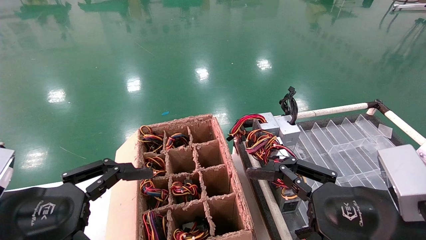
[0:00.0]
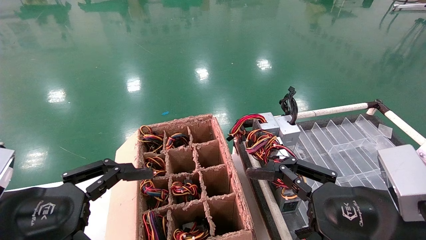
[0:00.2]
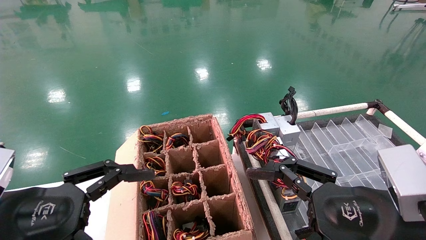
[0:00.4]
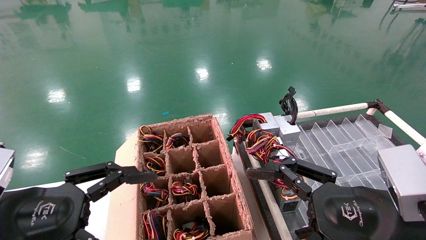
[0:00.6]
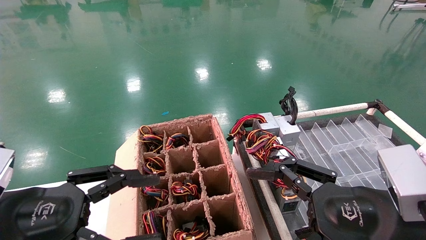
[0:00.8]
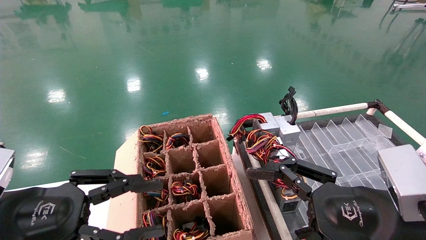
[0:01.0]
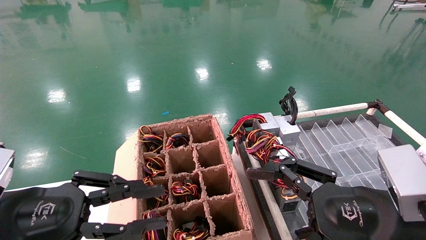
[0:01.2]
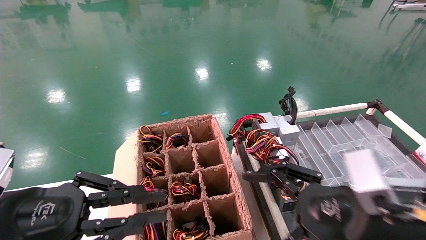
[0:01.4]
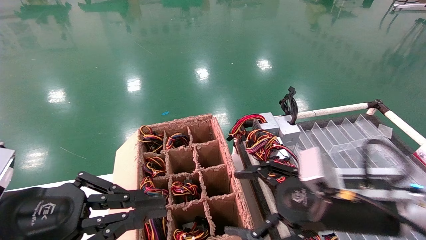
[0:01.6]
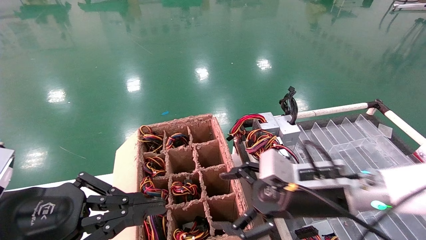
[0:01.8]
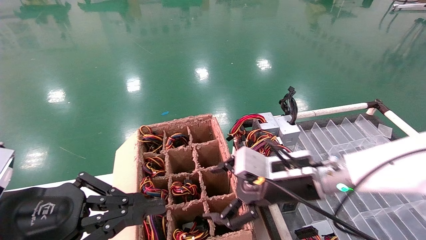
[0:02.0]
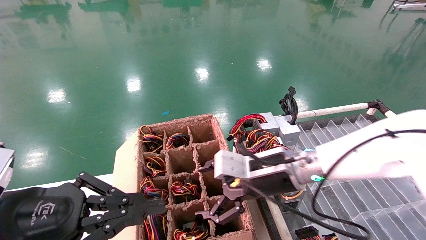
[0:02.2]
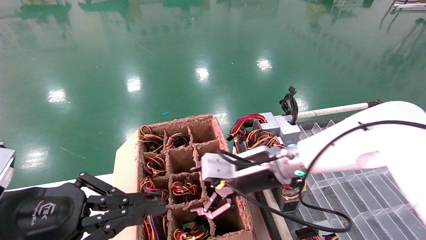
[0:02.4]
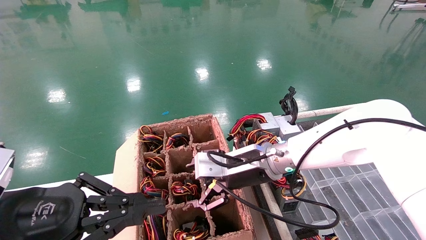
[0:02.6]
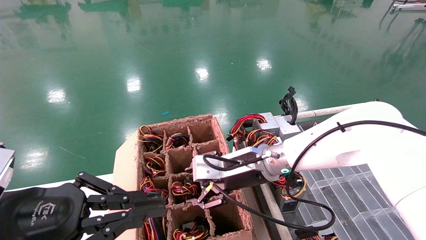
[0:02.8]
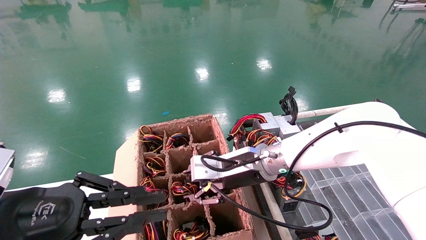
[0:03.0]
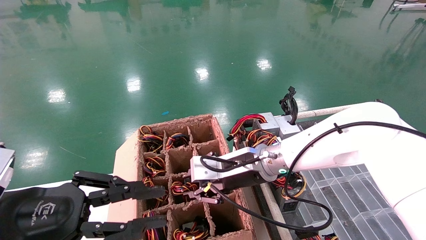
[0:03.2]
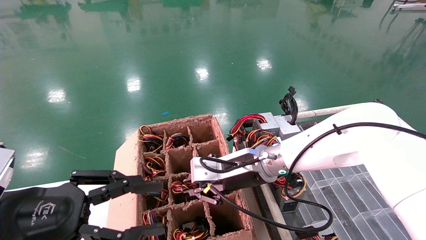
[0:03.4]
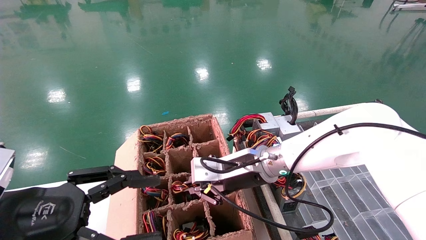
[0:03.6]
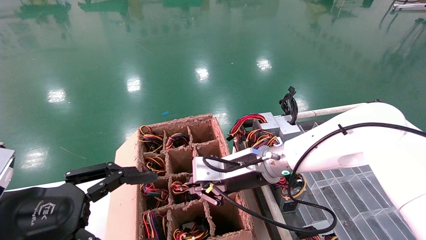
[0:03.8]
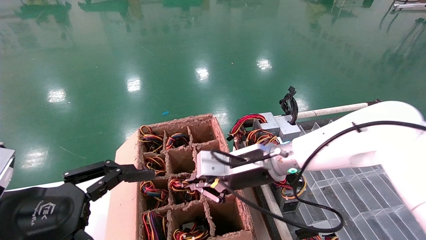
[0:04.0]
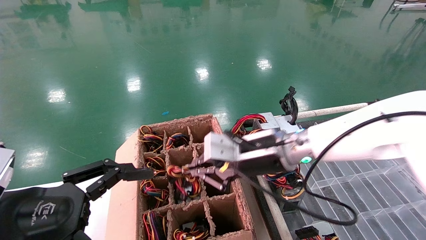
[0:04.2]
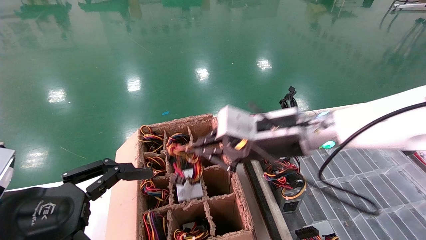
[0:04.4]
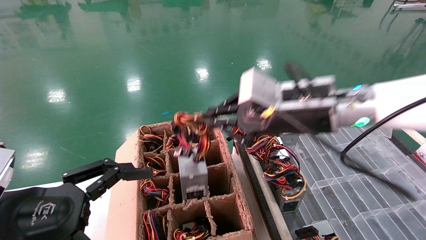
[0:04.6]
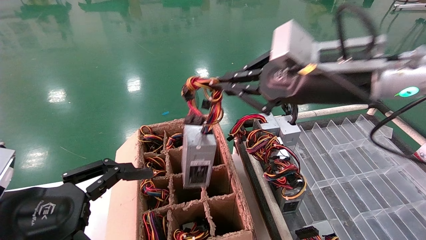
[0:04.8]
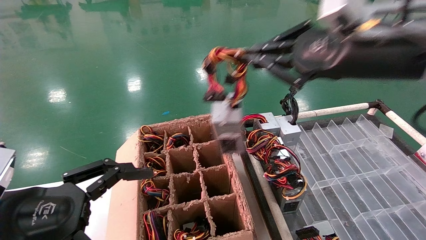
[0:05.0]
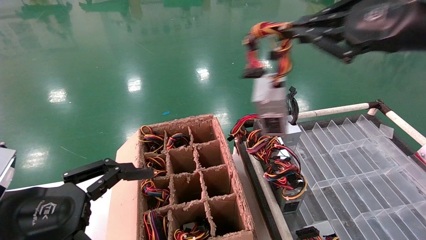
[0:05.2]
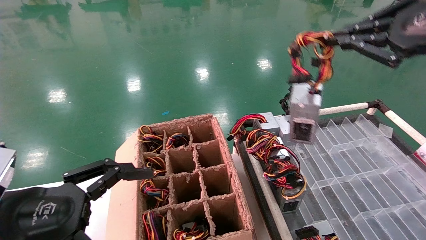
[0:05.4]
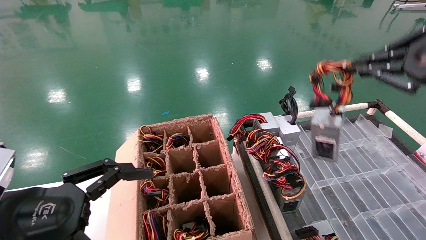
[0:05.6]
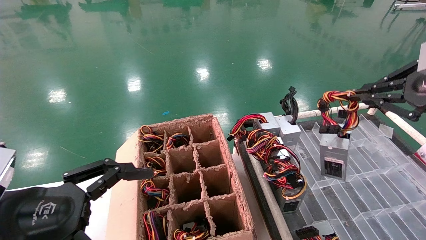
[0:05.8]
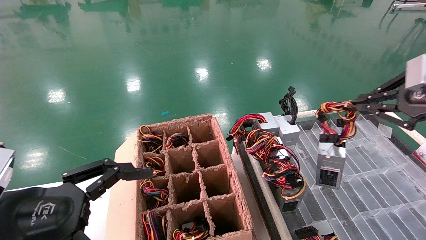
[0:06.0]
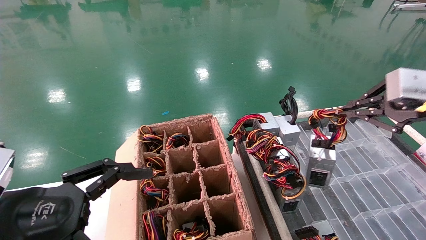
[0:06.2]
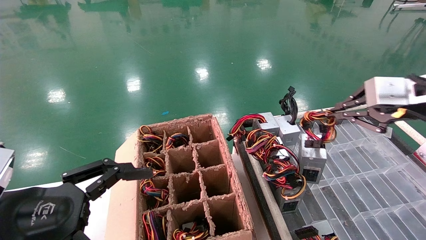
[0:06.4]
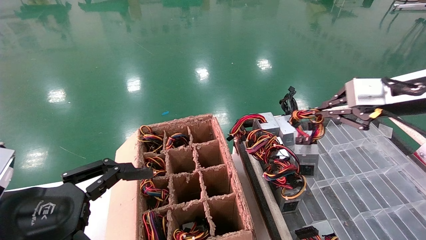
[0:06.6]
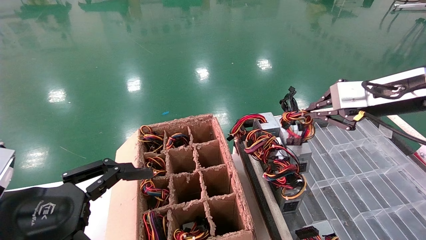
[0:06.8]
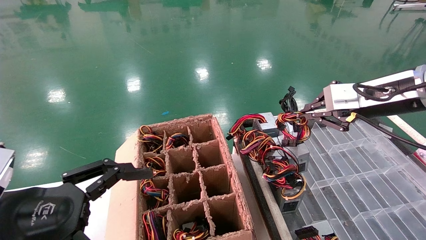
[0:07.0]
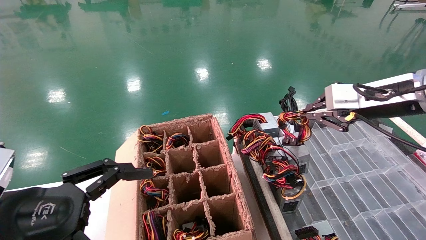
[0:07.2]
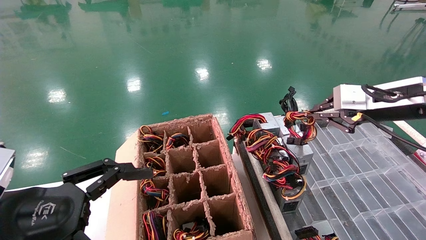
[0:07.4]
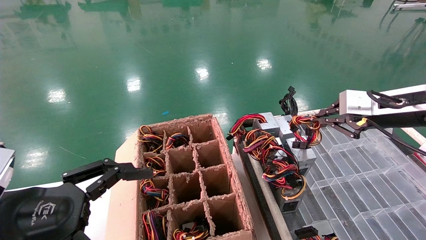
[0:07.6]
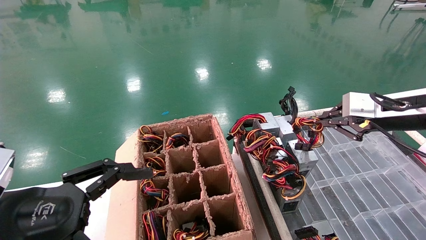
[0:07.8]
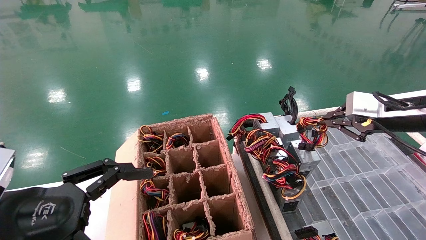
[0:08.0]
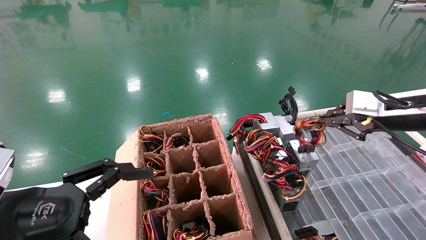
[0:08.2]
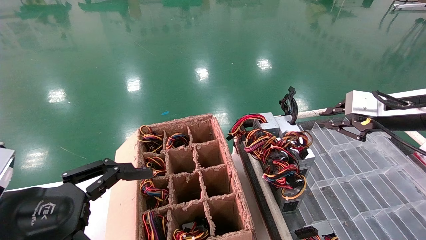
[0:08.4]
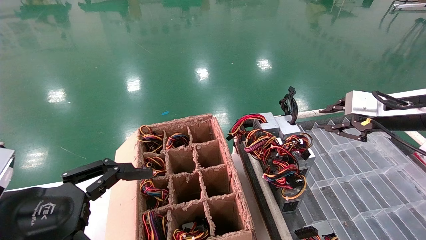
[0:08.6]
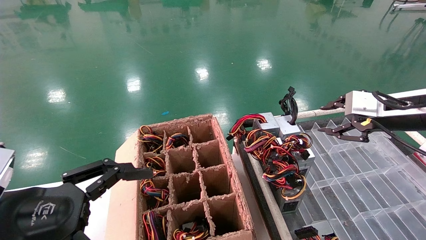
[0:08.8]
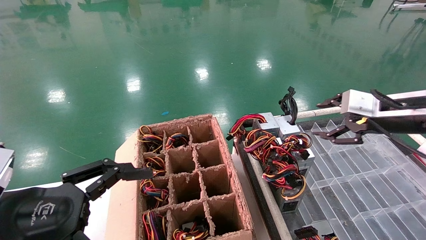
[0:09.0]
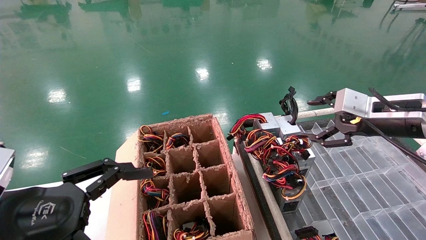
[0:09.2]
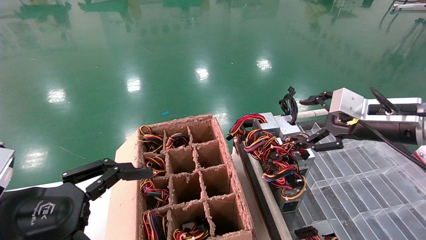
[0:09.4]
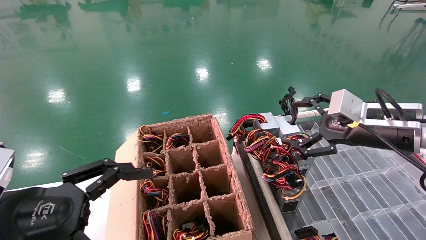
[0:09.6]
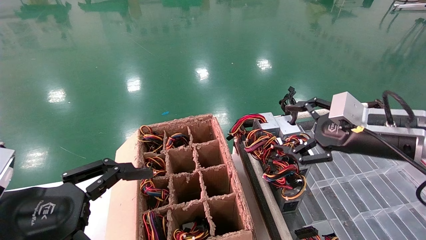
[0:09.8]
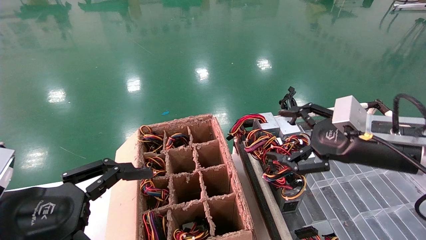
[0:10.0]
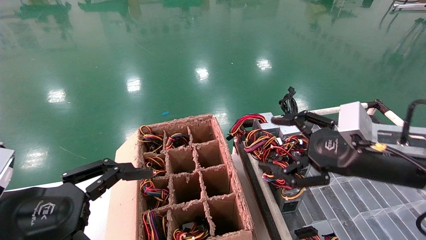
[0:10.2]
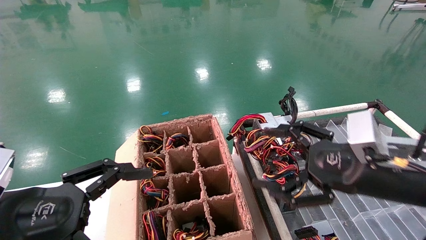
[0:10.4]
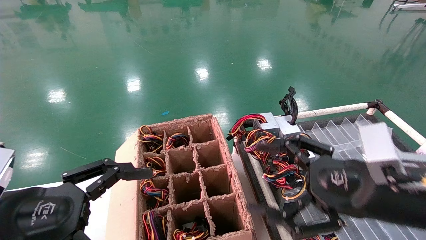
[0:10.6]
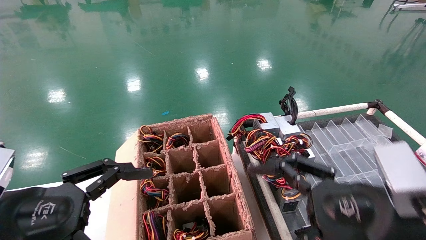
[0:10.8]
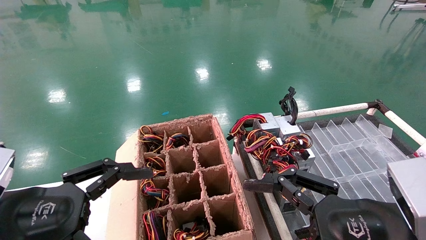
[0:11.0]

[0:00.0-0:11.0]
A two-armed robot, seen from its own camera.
Step, 0:00.8 to 0:03.6: Grab and lift the power supply from the large box.
Step, 0:03.8 to 0:08.4: Place the power supply on the operating table.
0:00.0 to 0:01.6: The right gripper shifts some 10 cm forward. The left gripper closes its fingers.
0:01.6 to 0:03.2: The right gripper heads to the left and forward, covering some 20 cm, and closes up.
0:03.2 to 0:04.8: The right gripper moves upward, to the right and backward, about 25 cm, and closes. The left gripper opens its fingers.
0:04.8 to 0:06.2: The right gripper heads to the right, covering approximately 20 cm.
0:06.2 to 0:07.8: The right gripper heads forward, covering about 5 cm.
0:07.8 to 0:09.4: The right gripper opens up.
0:09.4 to 0:11.0: The right gripper shifts approximately 20 cm backward, to the left and downward.

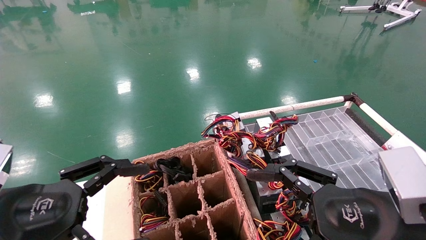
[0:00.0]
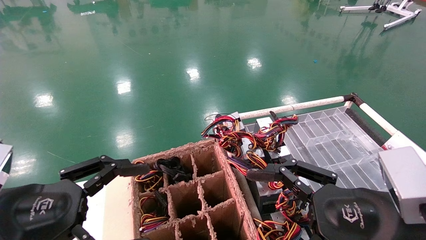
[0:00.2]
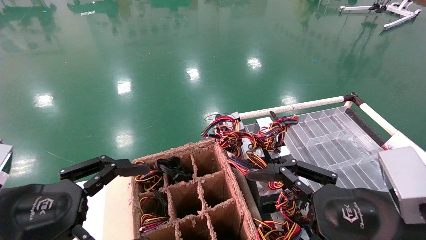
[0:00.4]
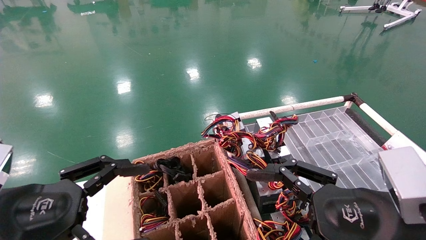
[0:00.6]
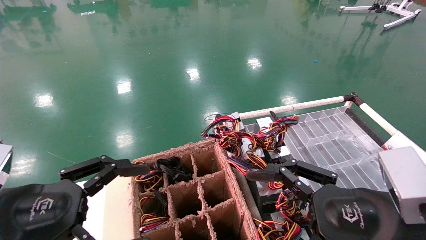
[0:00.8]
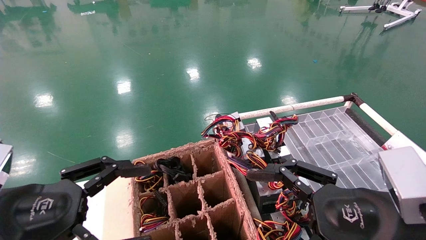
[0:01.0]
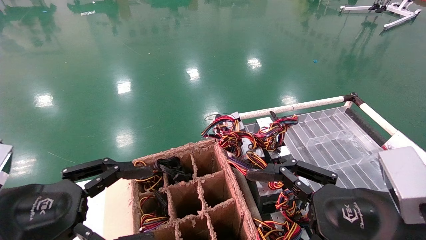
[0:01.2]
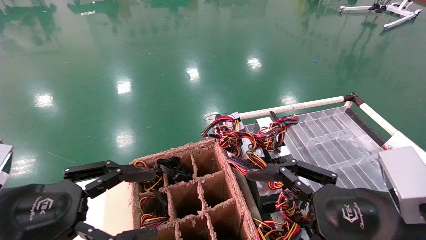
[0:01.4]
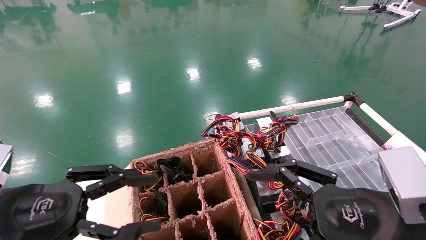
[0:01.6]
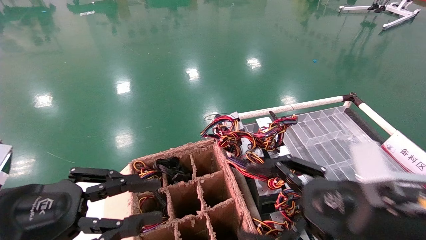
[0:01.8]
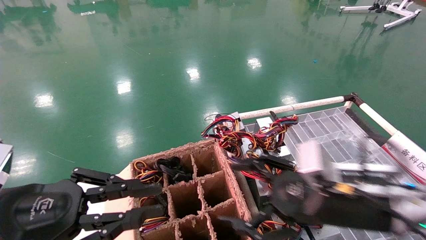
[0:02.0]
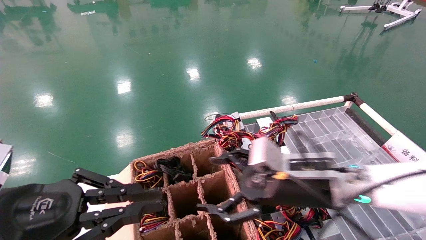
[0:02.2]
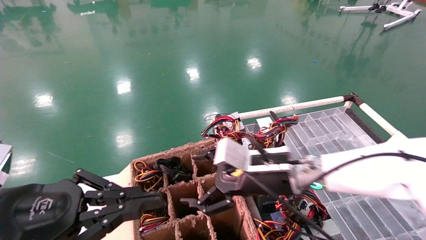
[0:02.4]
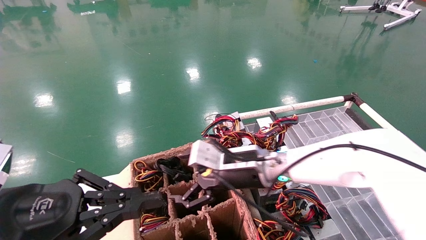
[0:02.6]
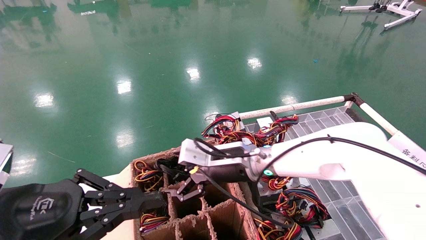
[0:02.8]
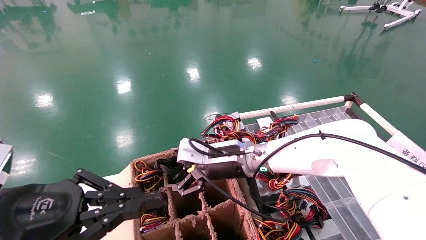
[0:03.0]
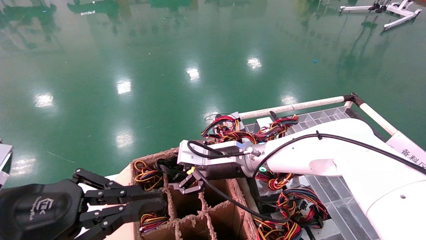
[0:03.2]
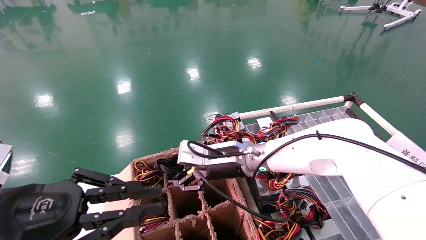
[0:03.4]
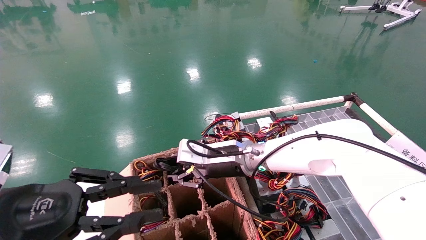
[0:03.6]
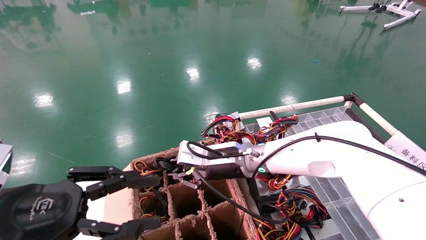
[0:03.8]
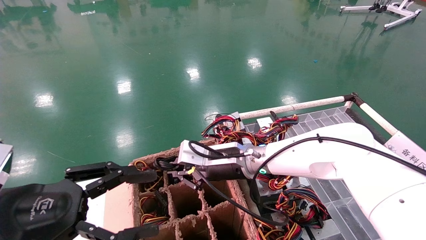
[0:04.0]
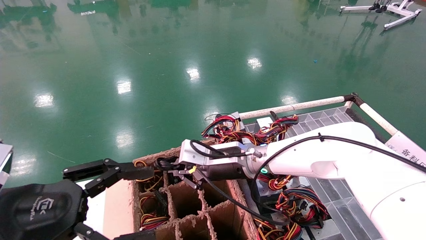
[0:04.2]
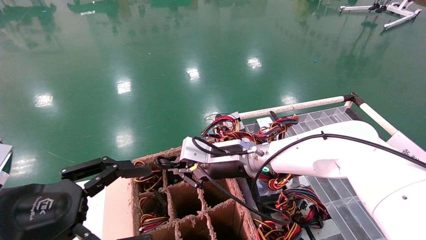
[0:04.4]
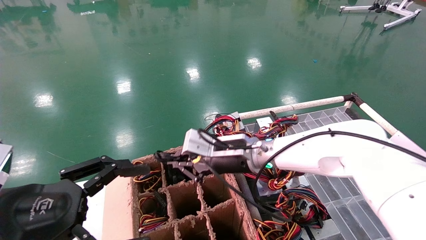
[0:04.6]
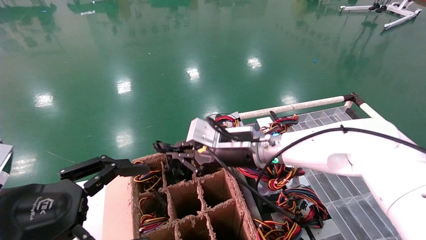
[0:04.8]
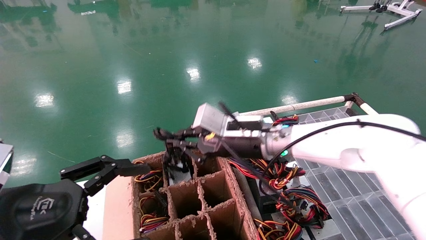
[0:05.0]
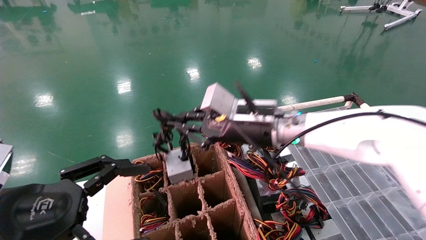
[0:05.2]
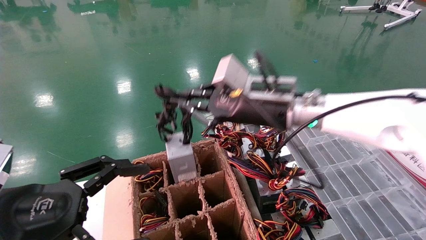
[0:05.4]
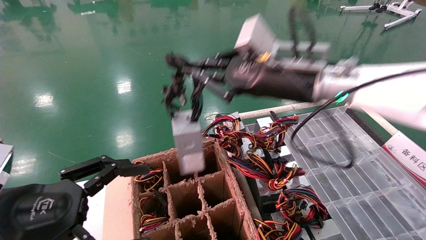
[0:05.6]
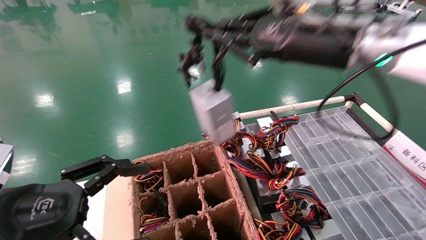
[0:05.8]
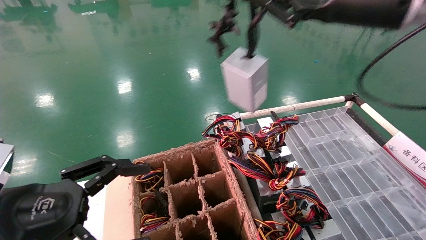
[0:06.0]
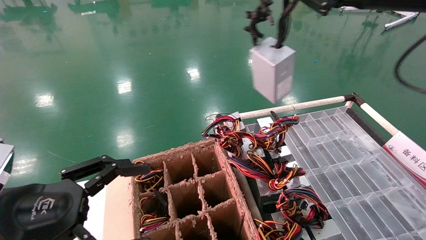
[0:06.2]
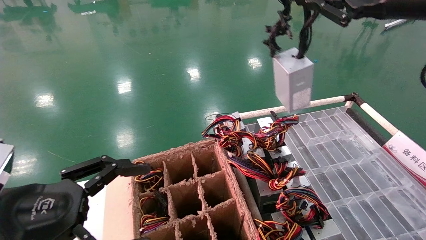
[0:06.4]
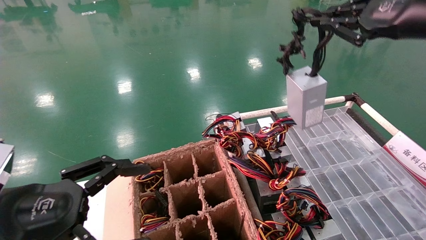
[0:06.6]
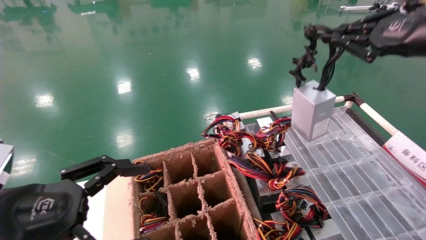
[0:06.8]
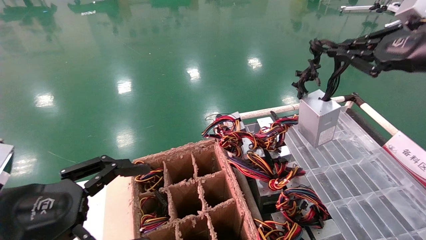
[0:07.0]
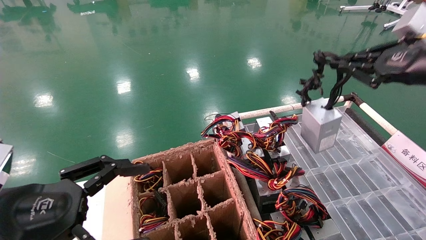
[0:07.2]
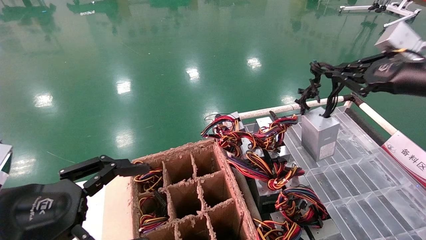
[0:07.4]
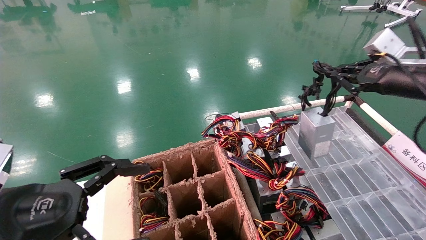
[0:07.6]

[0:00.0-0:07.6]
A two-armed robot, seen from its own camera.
Step, 0:01.2 to 0:04.2: Grab and lift the power supply from the large box.
0:00.0 to 0:01.6: The left gripper closes.
0:01.6 to 0:03.0: The left gripper closes up; the right gripper shifts about 30 cm forward and to the left.
0:03.0 to 0:04.6: The left gripper opens its fingers, while the right gripper closes.
0:04.6 to 0:06.0: The right gripper goes roughly 30 cm upward, to the right and backward.
0:06.0 to 0:07.6: The right gripper moves to the right, downward and forward, about 20 cm.
